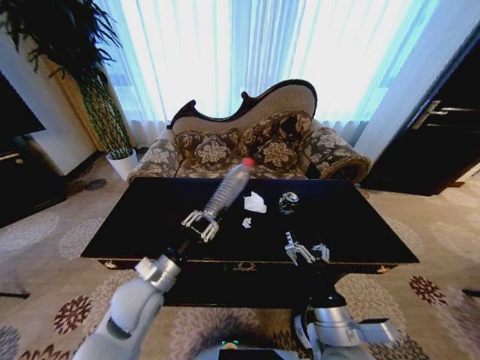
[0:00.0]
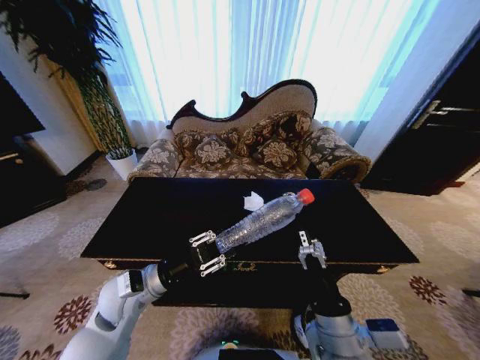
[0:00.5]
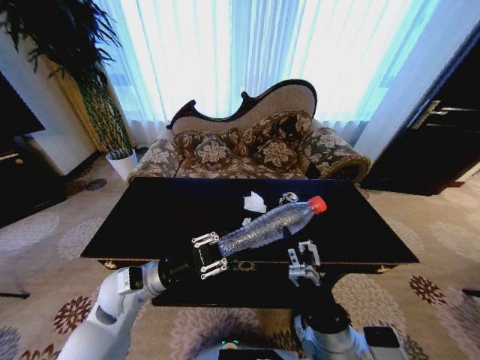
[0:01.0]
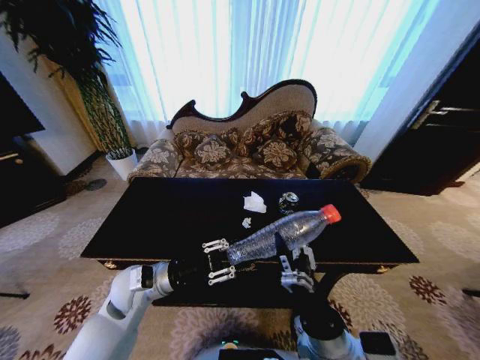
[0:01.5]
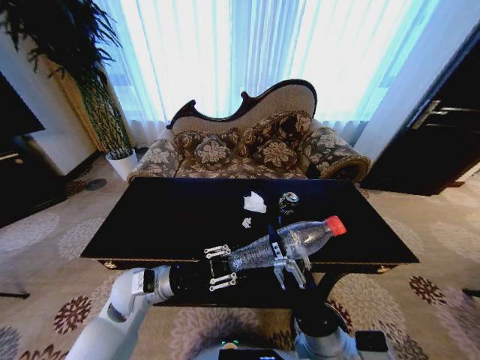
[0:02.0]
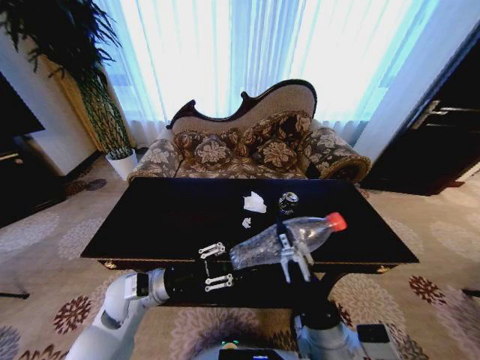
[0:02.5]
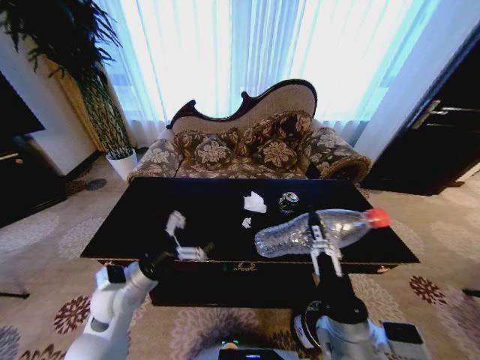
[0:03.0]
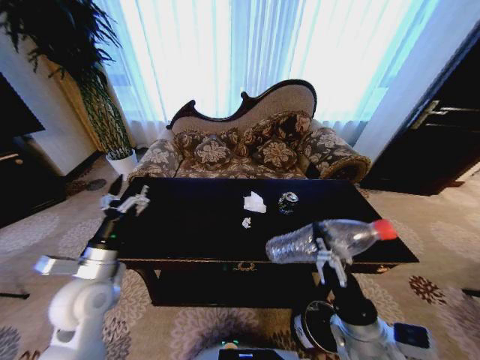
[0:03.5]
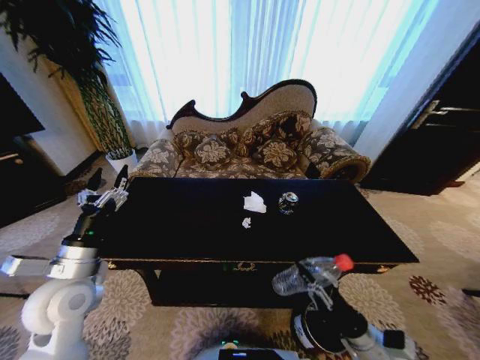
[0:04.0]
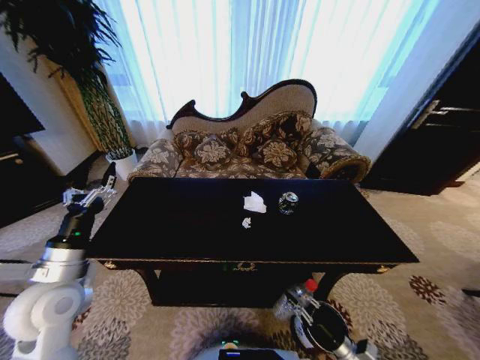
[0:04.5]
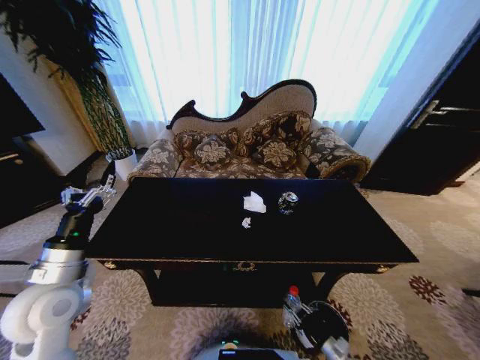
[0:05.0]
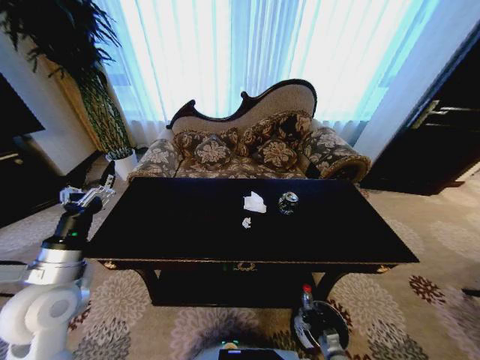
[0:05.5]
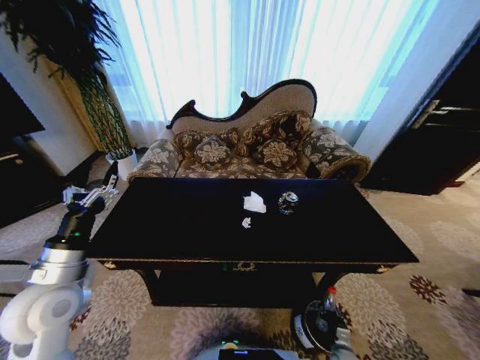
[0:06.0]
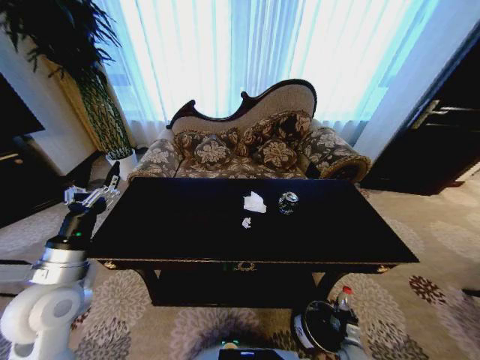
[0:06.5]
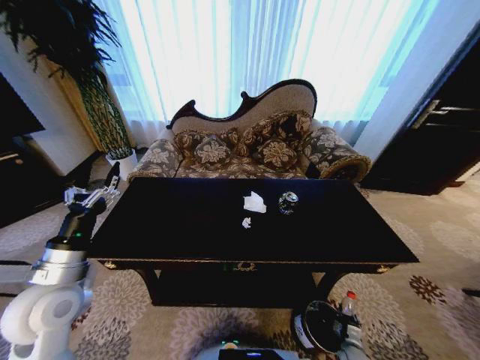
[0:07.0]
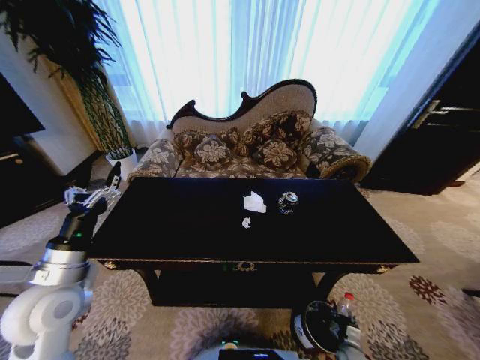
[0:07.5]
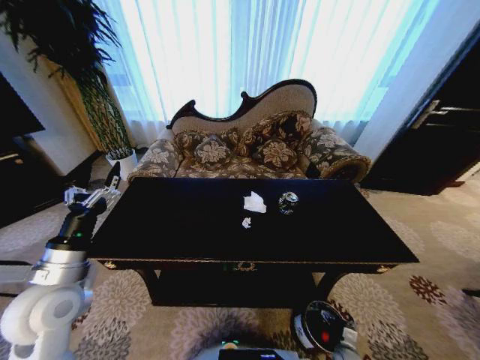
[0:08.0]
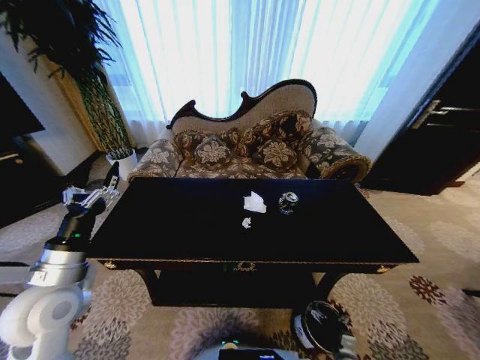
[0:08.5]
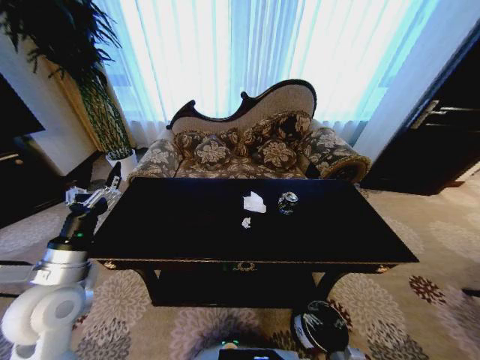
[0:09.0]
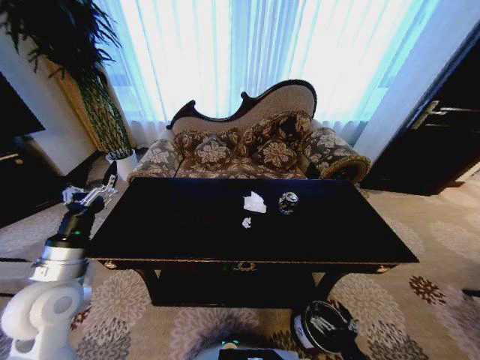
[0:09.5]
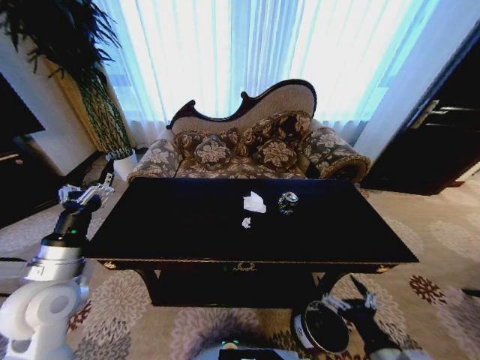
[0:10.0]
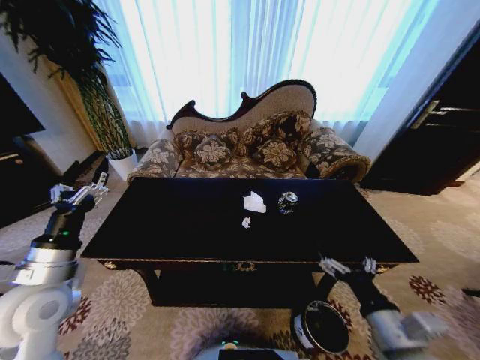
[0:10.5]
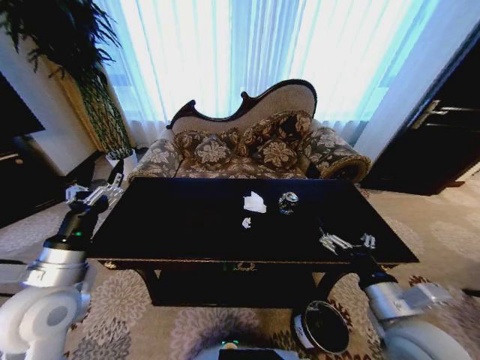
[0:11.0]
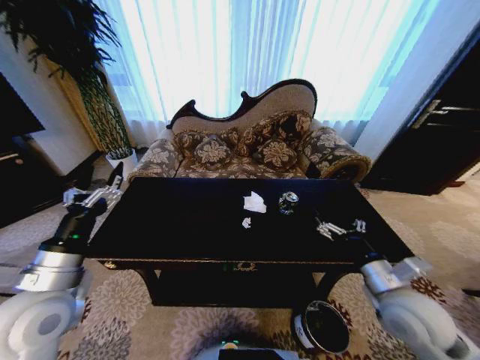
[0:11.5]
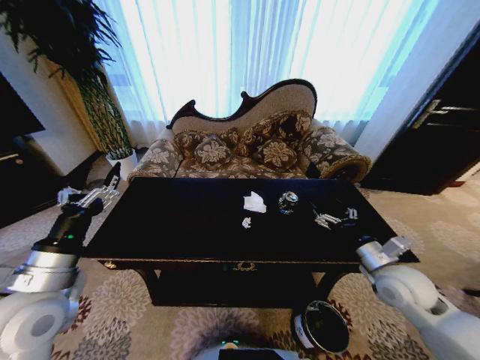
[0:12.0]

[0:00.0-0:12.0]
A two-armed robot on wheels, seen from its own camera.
Task of the whole recording: Move to the front of the table and place the trash on the table into the trash bin.
0:02.0 to 0:04.0: The left gripper goes about 10 cm to the left and upward, and opens its fingers. Meanwhile the right gripper heads to the right and downward, covering about 20 cm, and closes.
0:04.0 to 0:06.0: The right gripper heads downward, covering some 25 cm.
0:08.0 to 0:10.0: The right gripper goes some 35 cm upward.
0:10.0 to 0:12.0: The right gripper shifts roughly 20 cm forward.

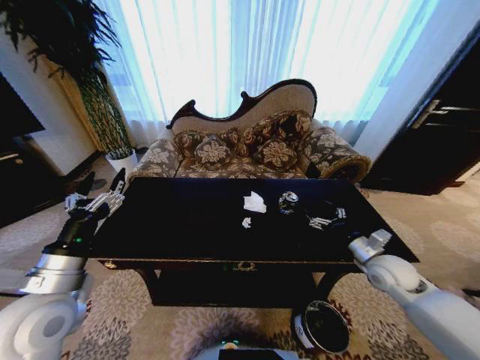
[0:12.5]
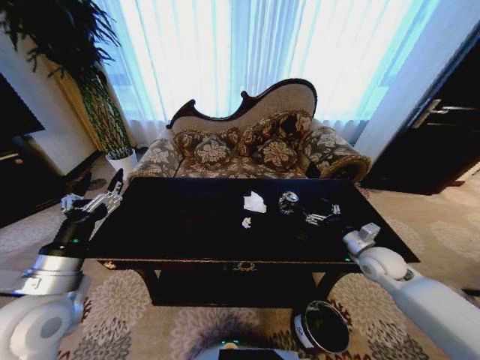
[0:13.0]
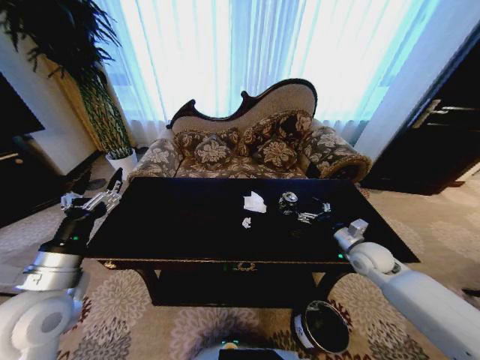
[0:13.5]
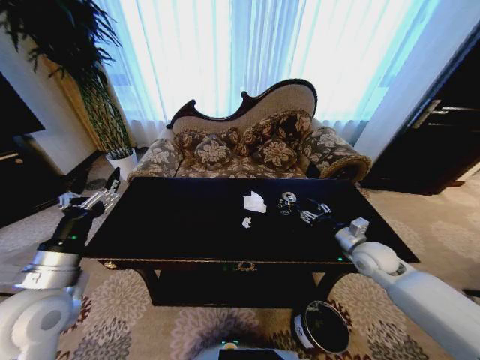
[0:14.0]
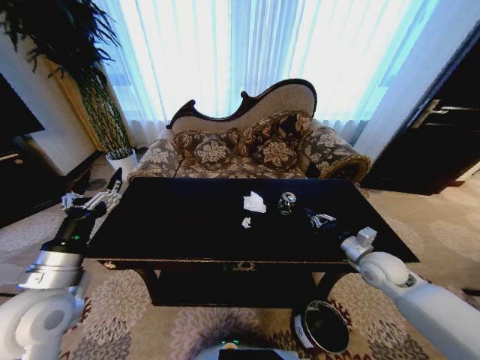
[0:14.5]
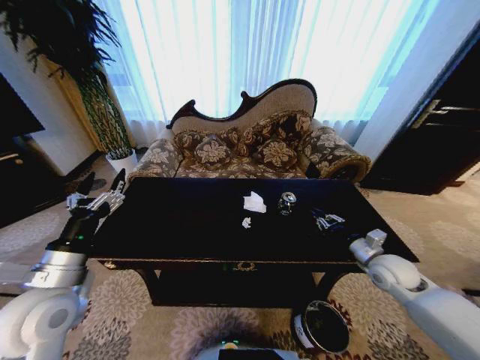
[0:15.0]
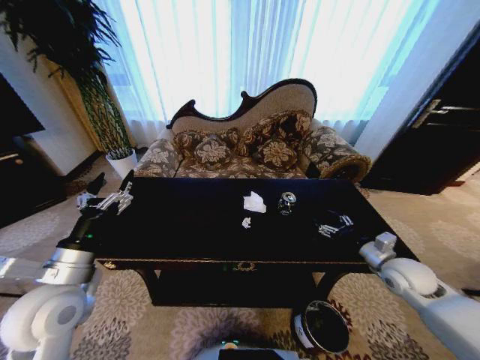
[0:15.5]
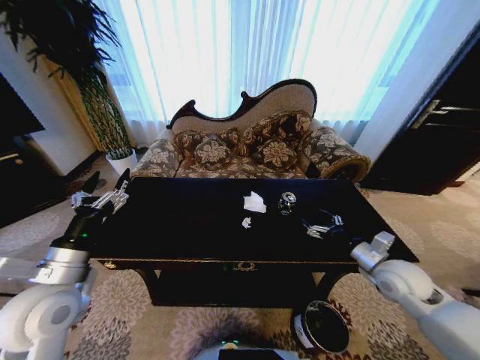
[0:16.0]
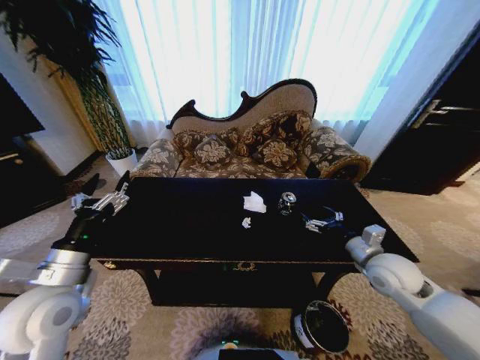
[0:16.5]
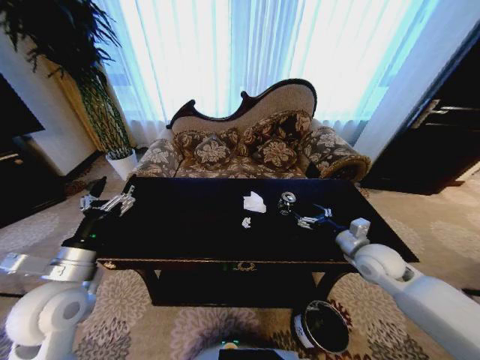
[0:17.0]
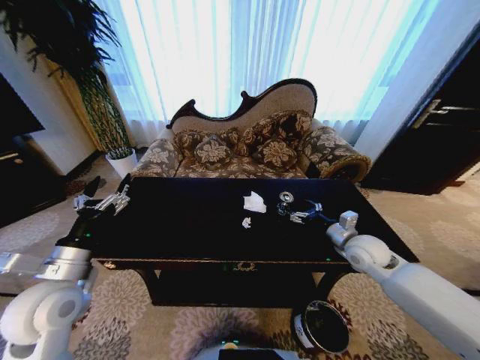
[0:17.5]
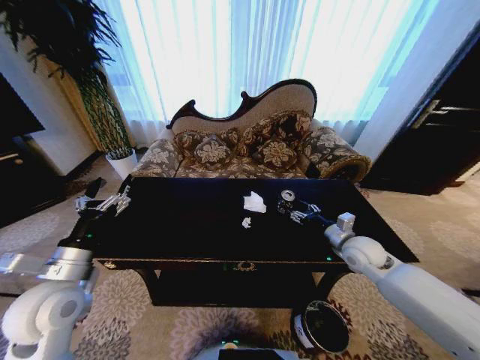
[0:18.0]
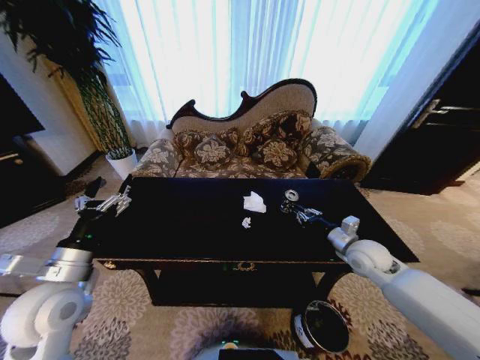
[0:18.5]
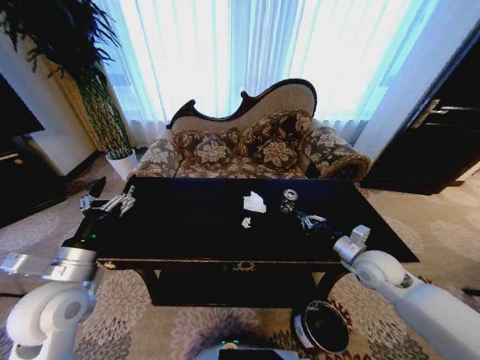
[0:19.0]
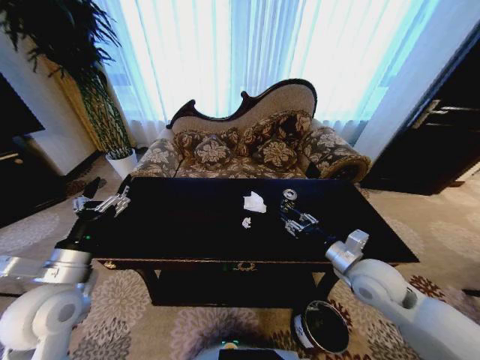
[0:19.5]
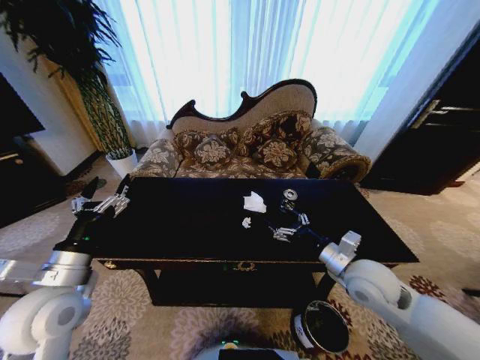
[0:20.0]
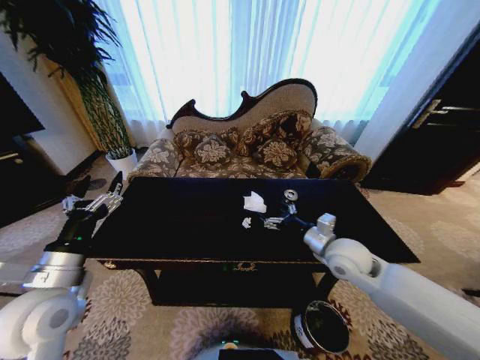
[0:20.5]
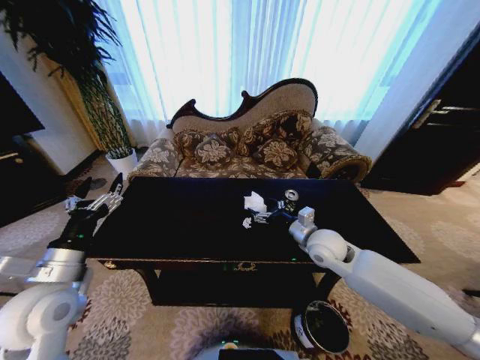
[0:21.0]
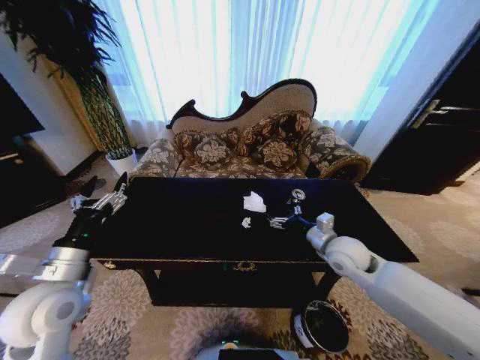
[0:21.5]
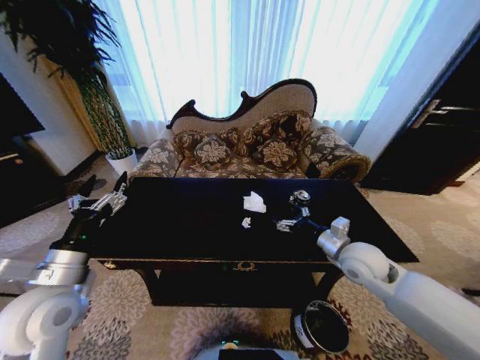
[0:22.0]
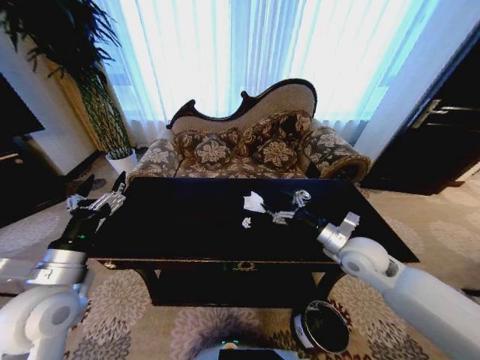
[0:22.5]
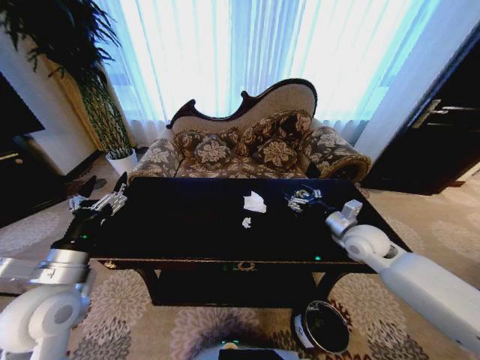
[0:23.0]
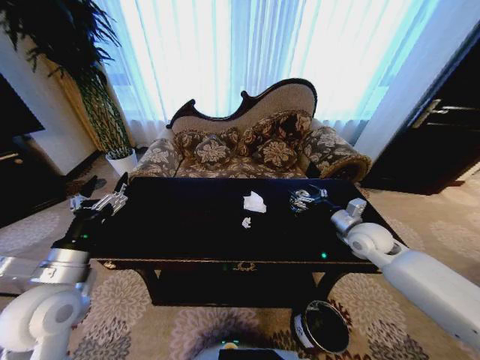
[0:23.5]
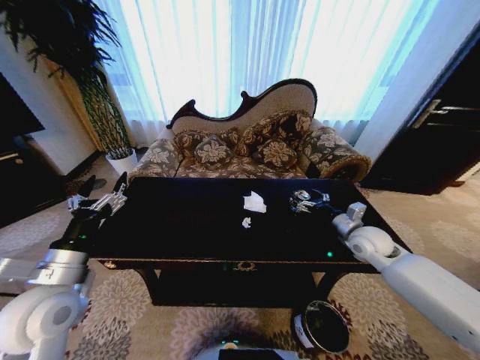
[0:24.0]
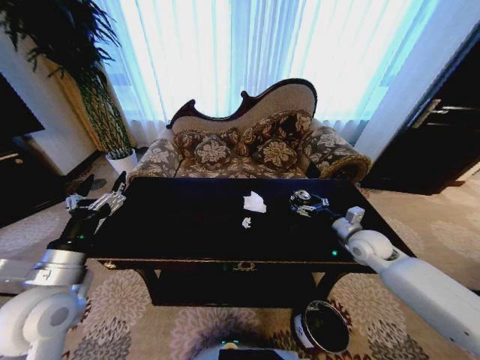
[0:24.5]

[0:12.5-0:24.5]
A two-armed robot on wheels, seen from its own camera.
Task of the whole recording: Move to the front of the table and place the trash on the table into the trash bin.
0:12.5 to 0:14.5: The right gripper closes up.
0:14.5 to 0:16.5: The right gripper ends up roughly 5 cm from where it was, and opens up.
0:16.5 to 0:18.5: The right gripper goes roughly 5 cm forward, and closes its fingers.
0:18.5 to 0:20.5: The right gripper moves to the left, about 10 cm, and opens up.
0:20.5 to 0:22.5: There are only small adjustments of the grippers.
0:22.5 to 0:24.5: The right gripper shifts about 10 cm to the right and forward.

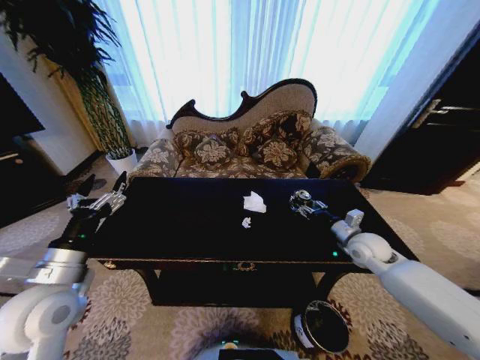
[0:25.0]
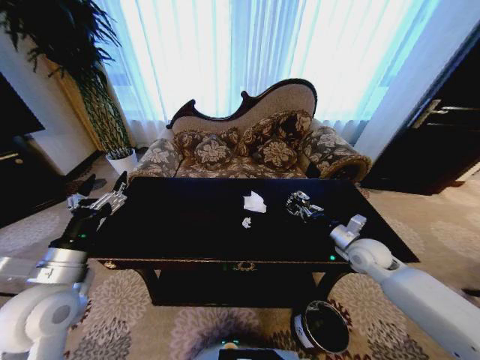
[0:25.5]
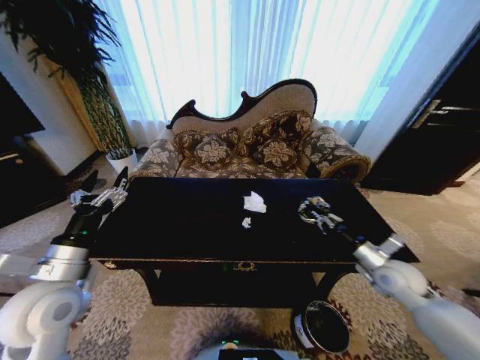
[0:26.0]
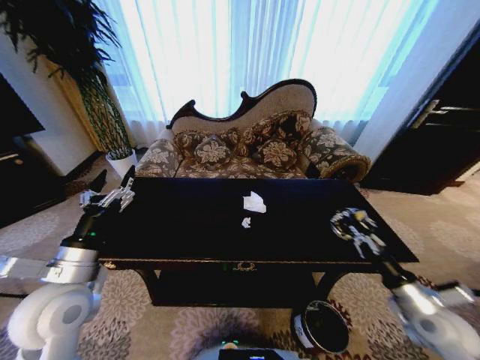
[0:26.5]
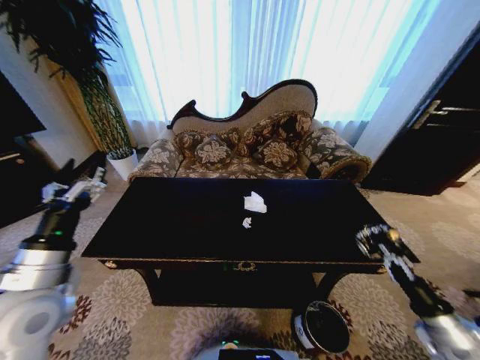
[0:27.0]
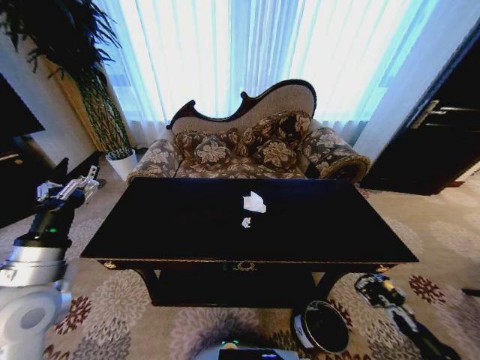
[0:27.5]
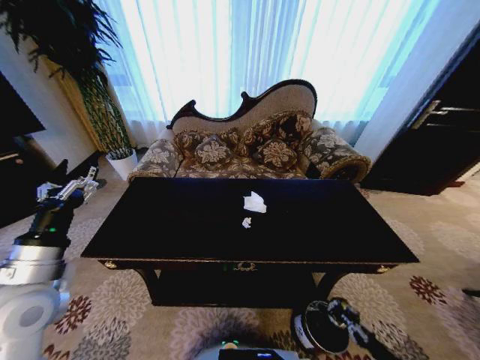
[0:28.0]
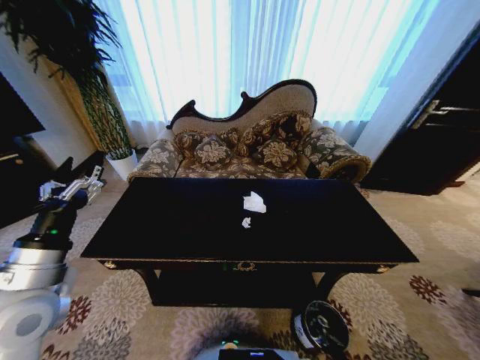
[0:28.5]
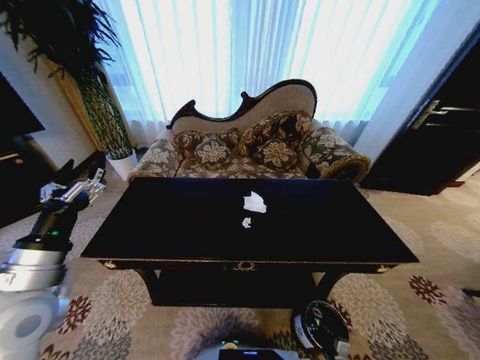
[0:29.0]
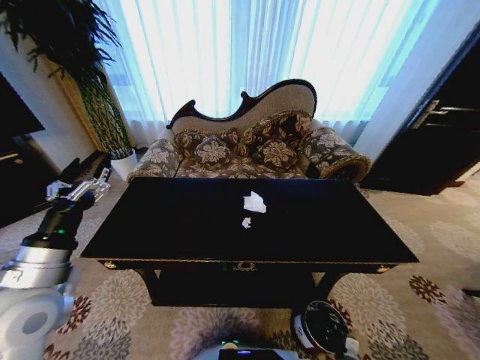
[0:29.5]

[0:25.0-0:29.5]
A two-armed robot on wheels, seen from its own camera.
Task of the whole recording: Move to the front of the table and place the trash on the table into the trash bin.
0:25.0 to 0:27.0: The right gripper moves backward, some 25 cm, and closes up.
0:27.0 to 0:29.5: The right gripper travels downward by about 35 cm.
